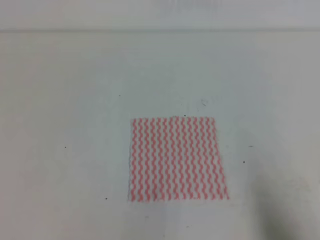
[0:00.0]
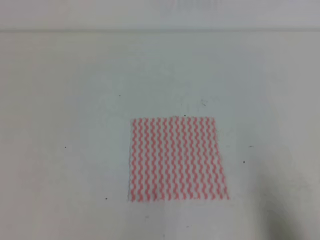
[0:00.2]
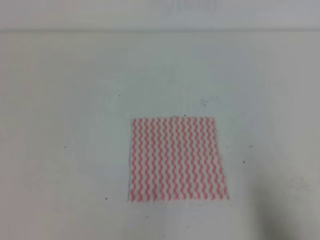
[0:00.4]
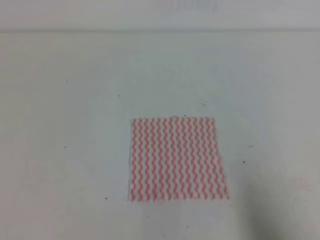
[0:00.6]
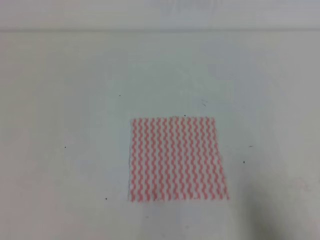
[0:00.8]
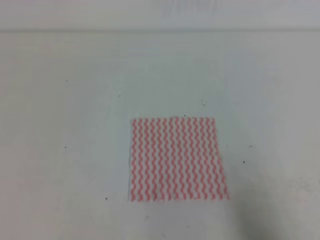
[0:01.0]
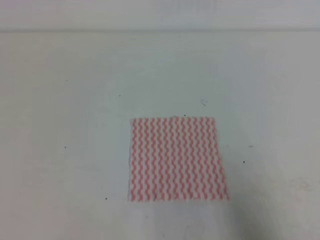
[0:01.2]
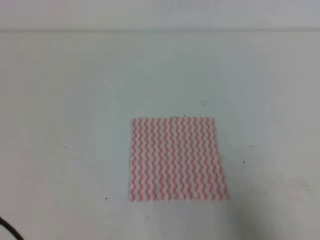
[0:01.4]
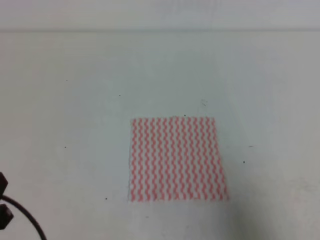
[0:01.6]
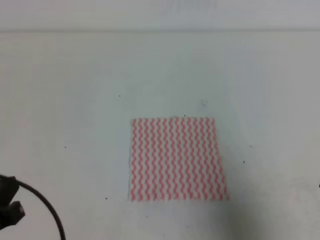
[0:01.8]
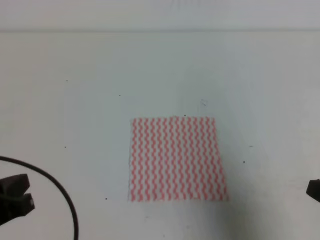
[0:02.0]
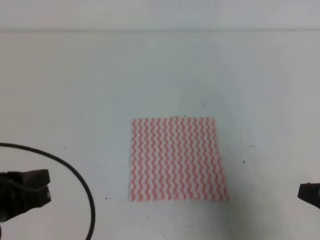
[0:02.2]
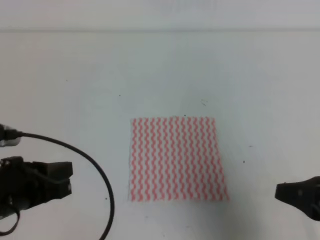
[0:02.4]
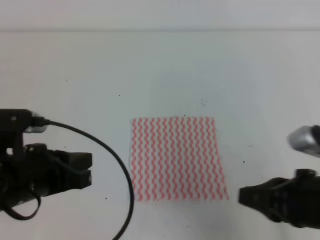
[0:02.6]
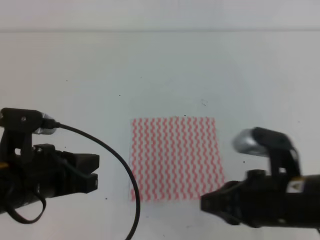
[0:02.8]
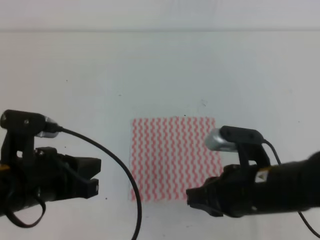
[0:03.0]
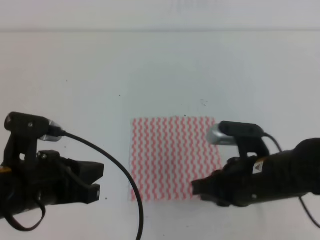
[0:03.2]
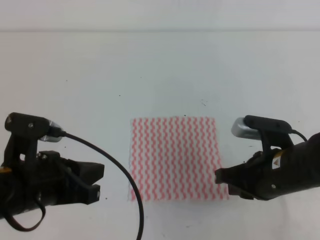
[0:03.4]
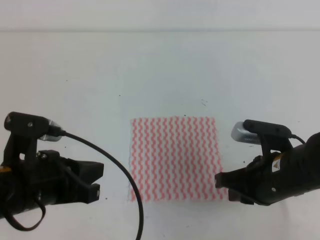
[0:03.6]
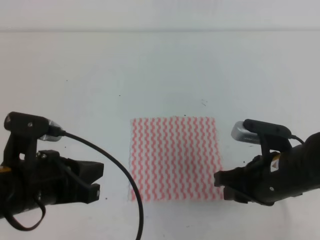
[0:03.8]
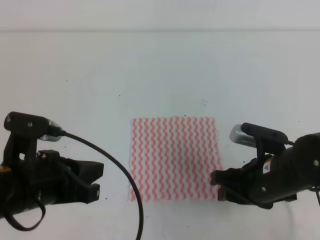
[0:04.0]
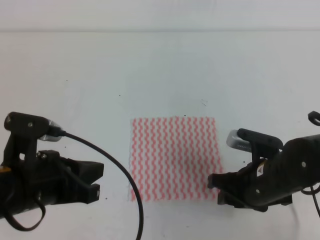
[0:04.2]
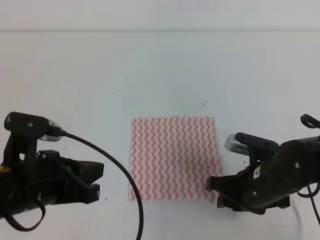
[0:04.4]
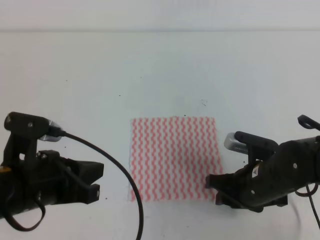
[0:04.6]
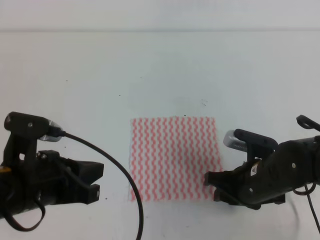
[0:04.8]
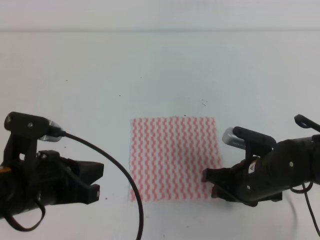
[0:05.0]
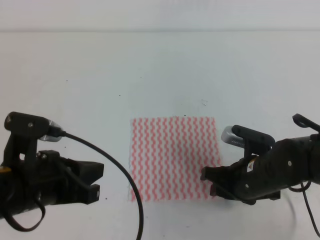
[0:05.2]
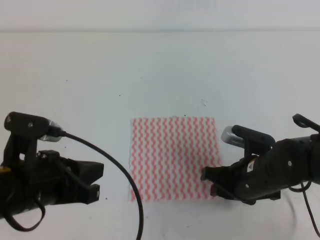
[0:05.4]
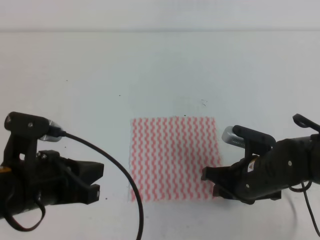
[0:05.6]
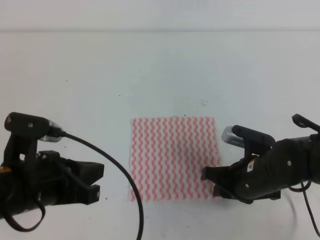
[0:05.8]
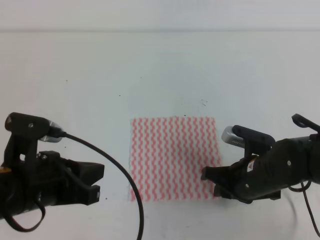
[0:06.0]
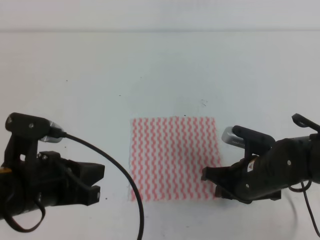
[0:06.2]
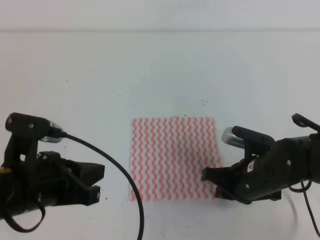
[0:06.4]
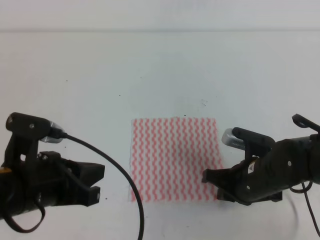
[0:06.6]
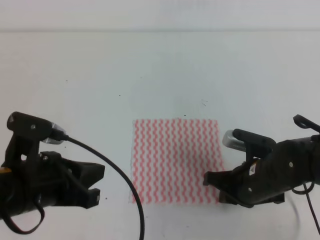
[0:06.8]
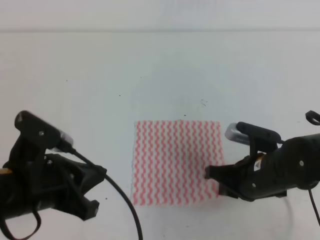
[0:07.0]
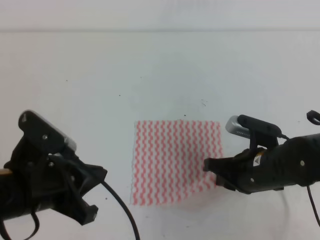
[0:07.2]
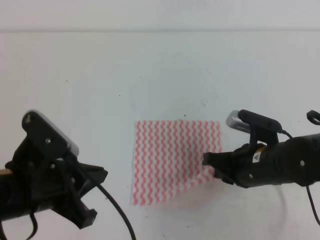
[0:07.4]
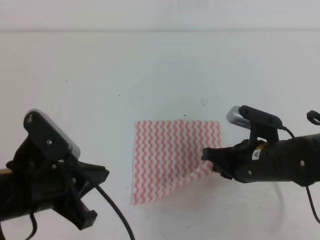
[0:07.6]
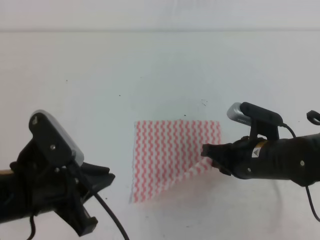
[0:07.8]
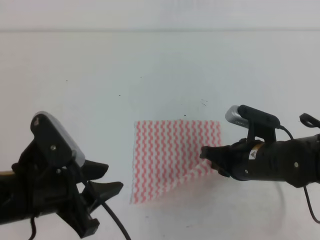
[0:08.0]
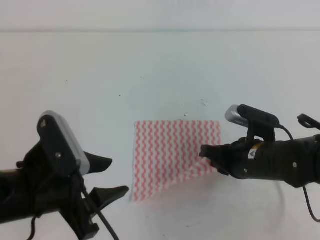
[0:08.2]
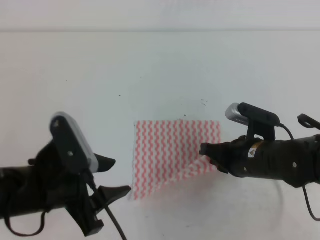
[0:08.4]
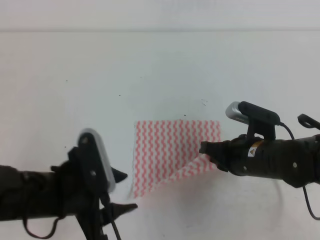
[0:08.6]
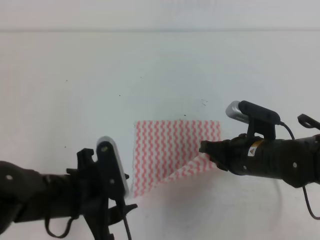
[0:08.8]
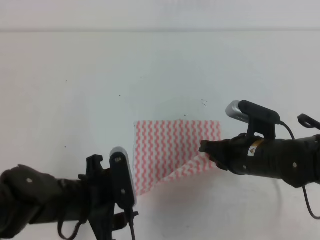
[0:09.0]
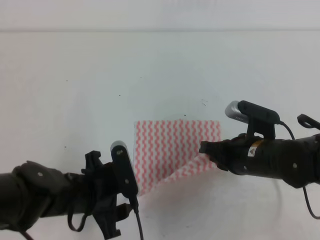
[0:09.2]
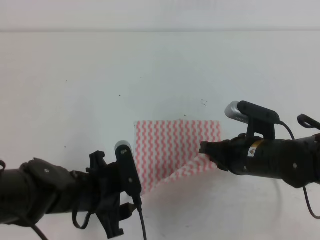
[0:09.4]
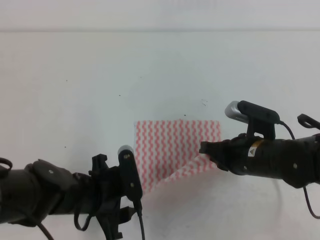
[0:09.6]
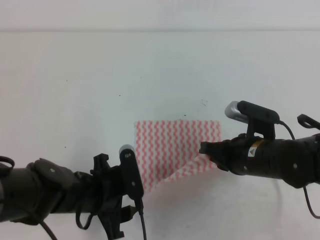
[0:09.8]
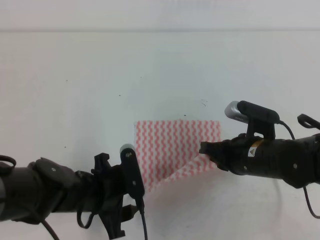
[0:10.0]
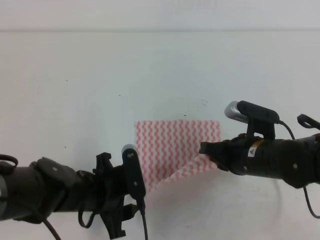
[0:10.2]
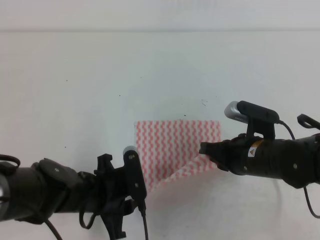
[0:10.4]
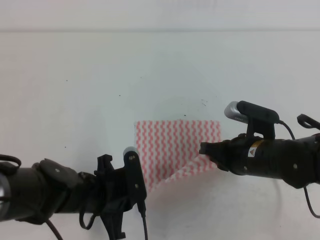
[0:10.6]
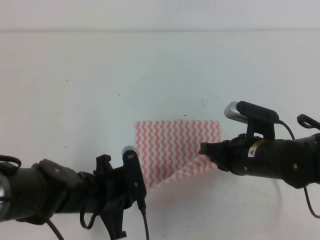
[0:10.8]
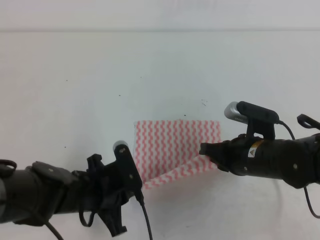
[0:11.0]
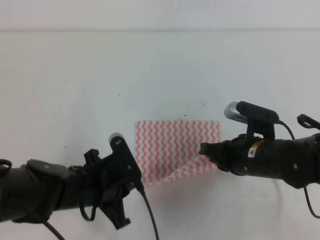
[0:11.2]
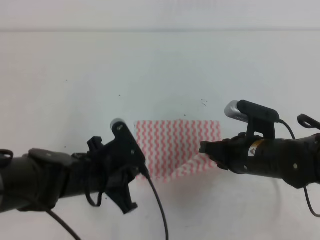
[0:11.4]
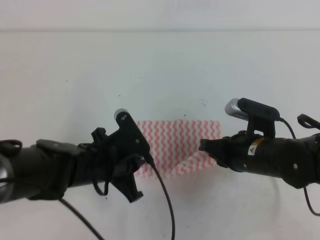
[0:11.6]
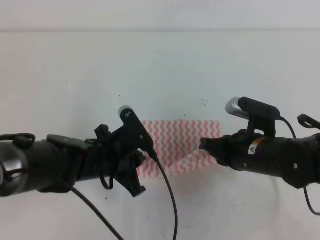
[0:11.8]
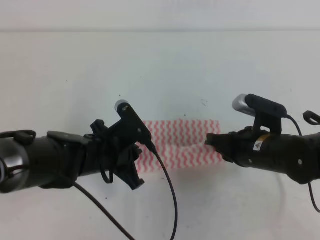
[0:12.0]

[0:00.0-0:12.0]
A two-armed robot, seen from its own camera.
0:00.0 to 0:01.6: The left gripper moves approximately 5 cm. Meanwhile the right gripper moves roughly 5 cm.
0:01.6 to 0:03.0: The left gripper goes approximately 10 cm forward and to the right, while the right gripper heads to the left and forward, covering roughly 20 cm.
0:03.0 to 0:04.4: The right gripper shifts roughly 10 cm downward and forward, and opens.
0:04.4 to 0:06.0: The right gripper closes its fingers.
0:06.0 to 0:07.6: The right gripper closes up.
0:07.6 to 0:09.0: The left gripper goes approximately 5 cm downward, and opens up.
0:09.0 to 0:10.4: The left gripper moves approximately 5 cm, and closes up.
0:10.4 to 0:12.0: The left gripper travels forward by roughly 5 cm, and closes its fingers.

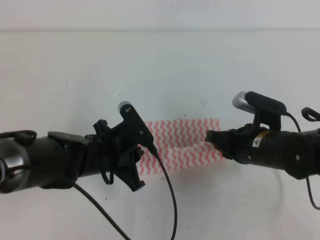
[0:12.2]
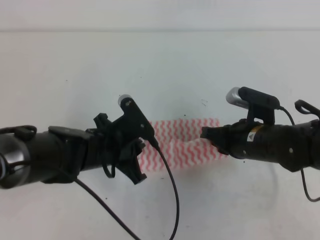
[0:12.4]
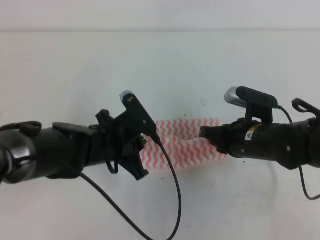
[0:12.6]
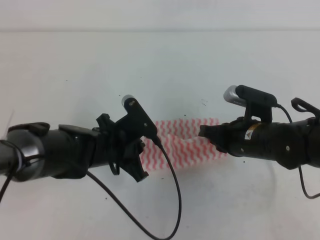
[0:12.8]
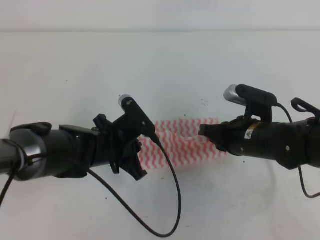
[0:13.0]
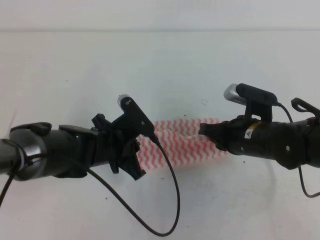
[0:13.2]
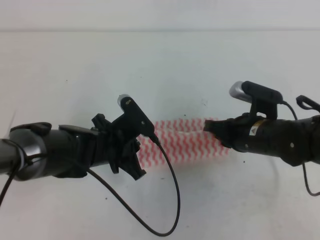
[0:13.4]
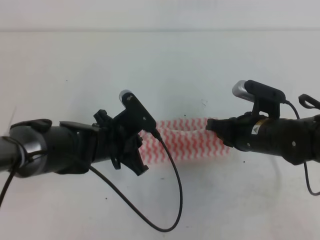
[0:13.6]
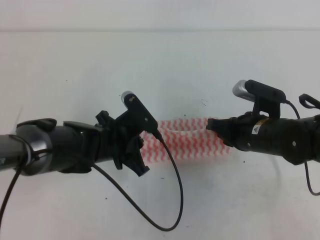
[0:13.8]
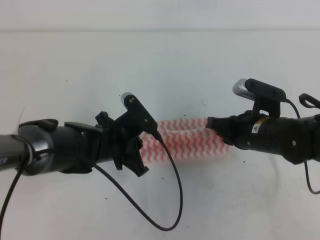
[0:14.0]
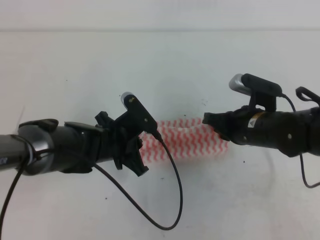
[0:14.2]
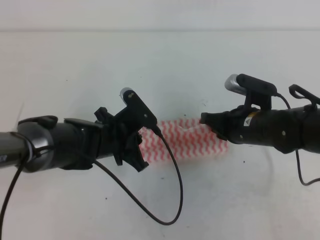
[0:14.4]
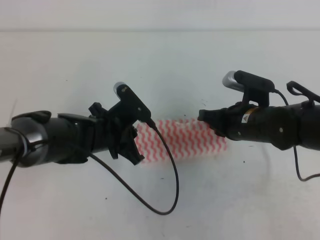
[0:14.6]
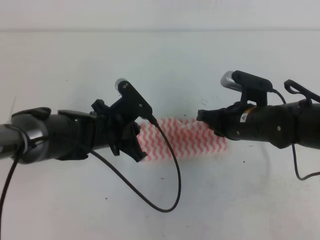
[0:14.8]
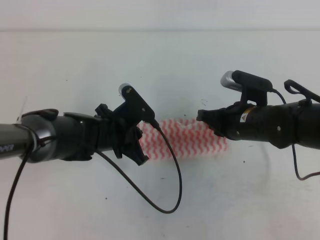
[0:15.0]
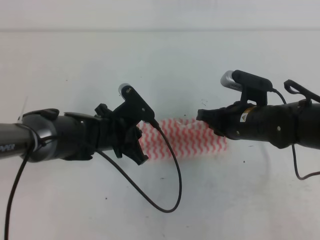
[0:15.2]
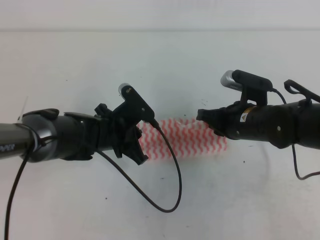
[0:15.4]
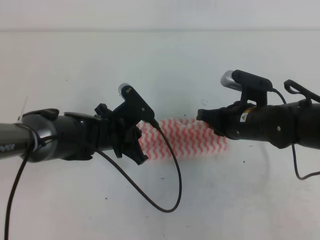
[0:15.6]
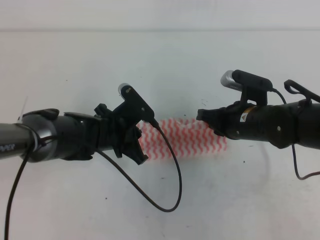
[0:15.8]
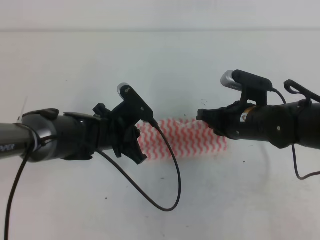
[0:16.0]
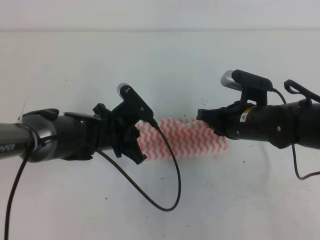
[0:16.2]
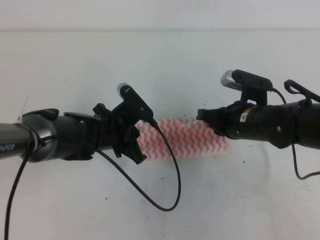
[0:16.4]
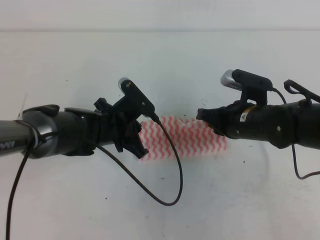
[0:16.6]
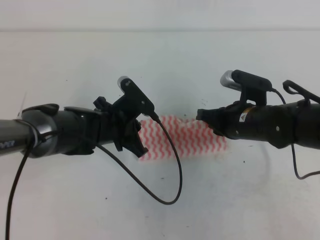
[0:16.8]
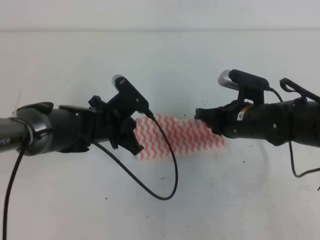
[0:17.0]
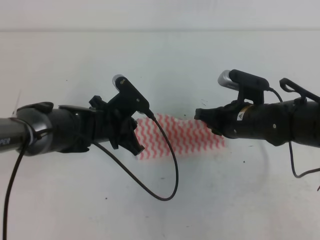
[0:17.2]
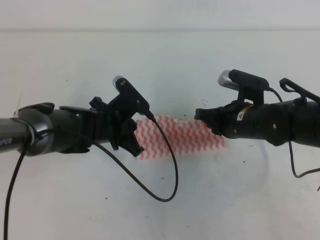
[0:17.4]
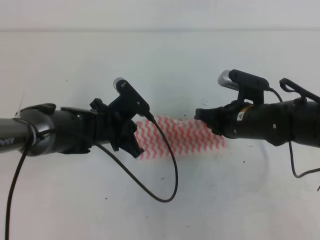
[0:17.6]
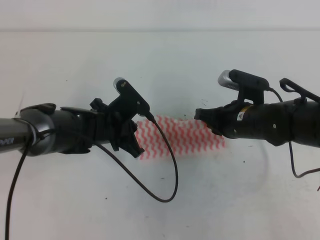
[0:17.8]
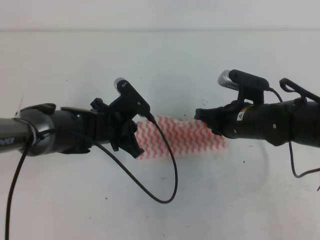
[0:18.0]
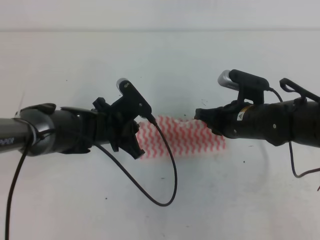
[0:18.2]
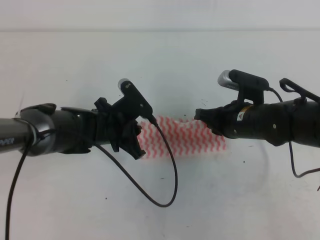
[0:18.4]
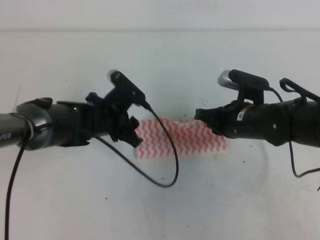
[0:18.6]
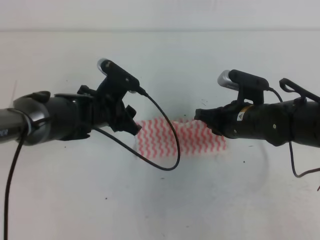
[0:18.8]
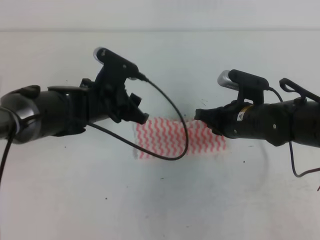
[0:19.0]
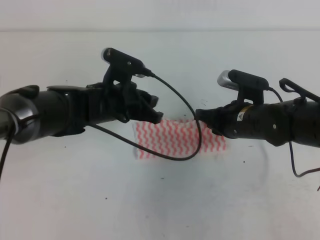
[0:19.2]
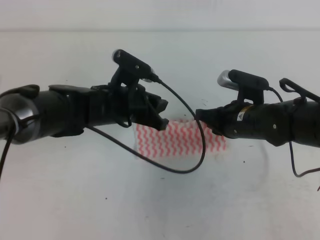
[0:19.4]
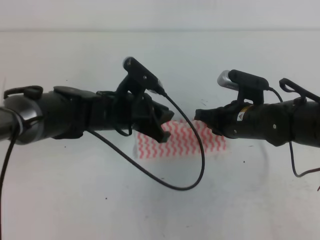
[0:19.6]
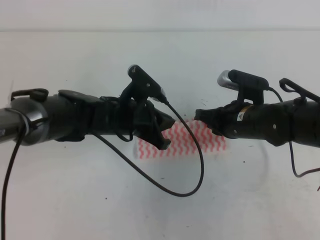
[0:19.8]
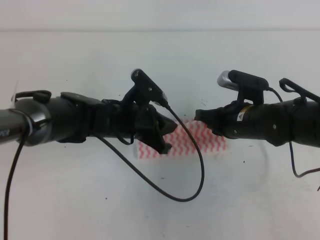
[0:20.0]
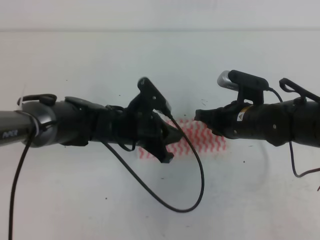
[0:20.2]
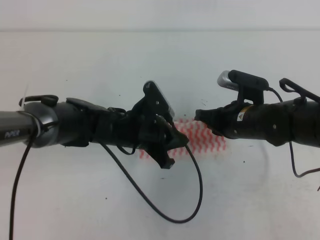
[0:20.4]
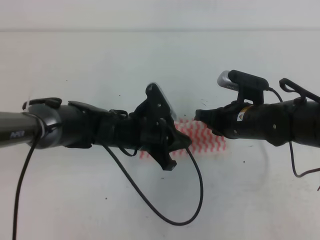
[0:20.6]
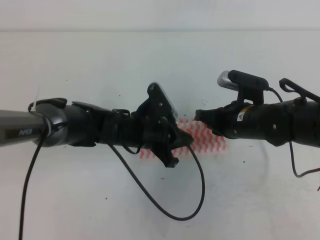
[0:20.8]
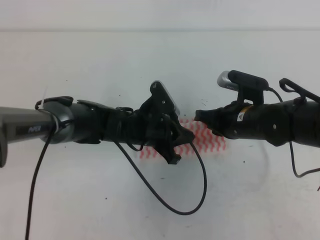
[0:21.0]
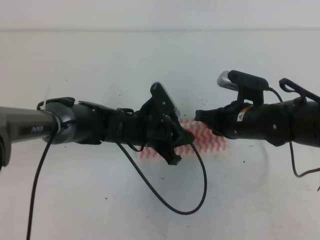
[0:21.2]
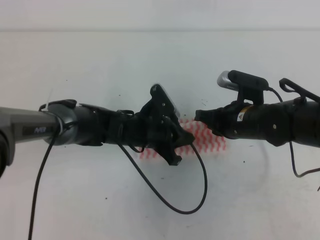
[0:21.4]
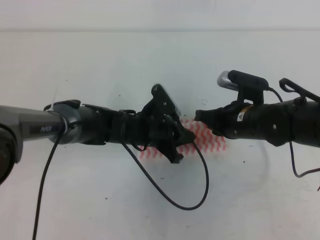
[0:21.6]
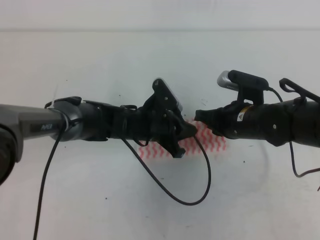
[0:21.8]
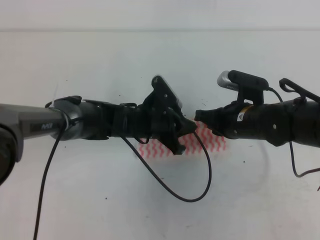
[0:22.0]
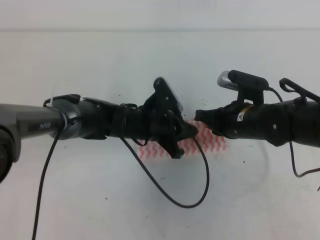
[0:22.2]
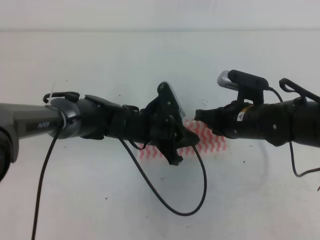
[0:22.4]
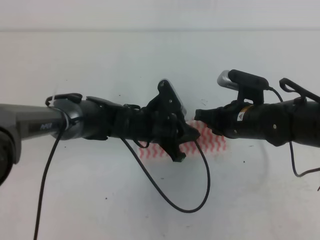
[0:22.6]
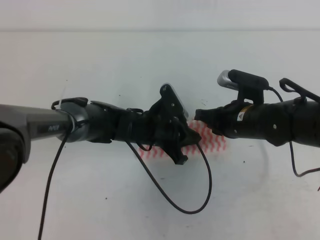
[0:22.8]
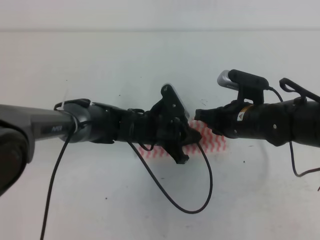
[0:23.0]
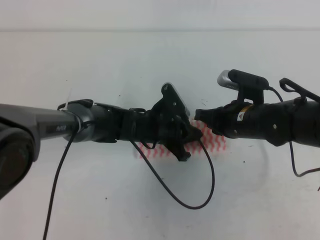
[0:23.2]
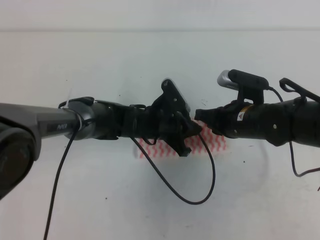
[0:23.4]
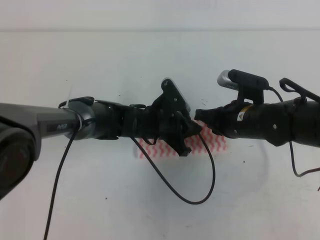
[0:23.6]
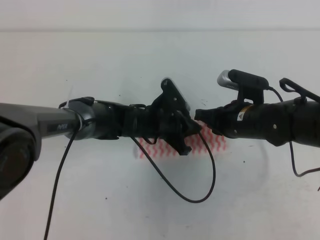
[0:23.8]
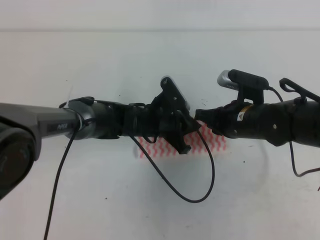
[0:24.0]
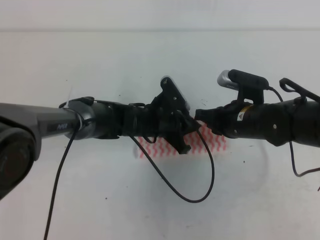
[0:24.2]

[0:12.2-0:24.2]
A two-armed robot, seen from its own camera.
Step, 0:12.2 to 0:15.0: Fold the towel upwards with the both gripper.
Step, 0:15.4 to 0:18.2: Tidy up the towels.
0:12.2 to 0:15.2: The grippers stay close to where they were, moving slightly.
0:15.2 to 0:16.6: Both grippers stay about where they are.
0:16.6 to 0:18.2: Neither gripper changes place.
0:18.2 to 0:19.8: The left gripper opens and closes again.
0:19.8 to 0:21.2: The left gripper changes place by some 5 cm.
0:21.2 to 0:24.2: The grippers stay close to where they were, moving slightly.
